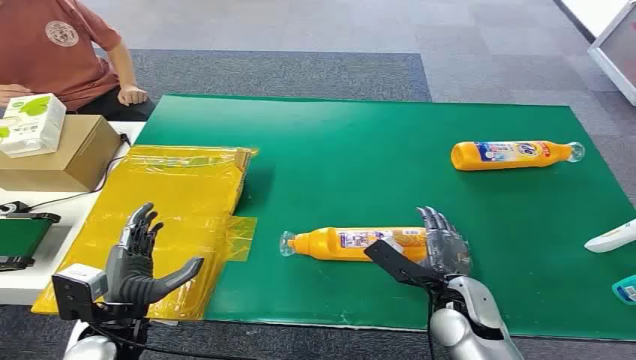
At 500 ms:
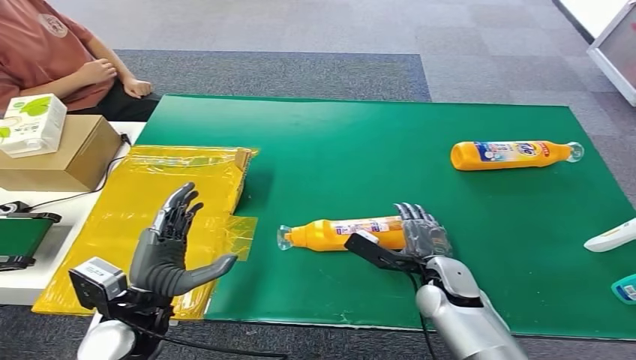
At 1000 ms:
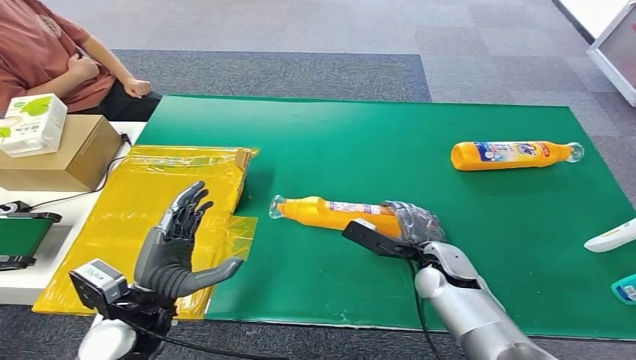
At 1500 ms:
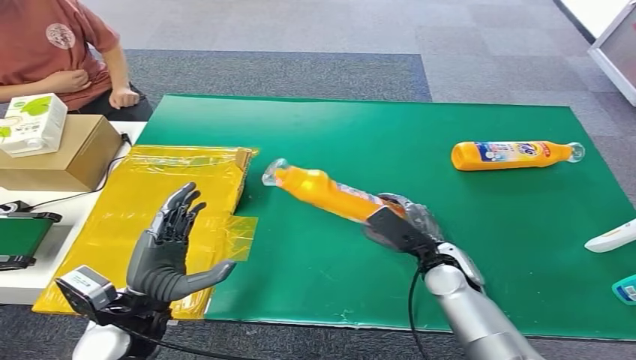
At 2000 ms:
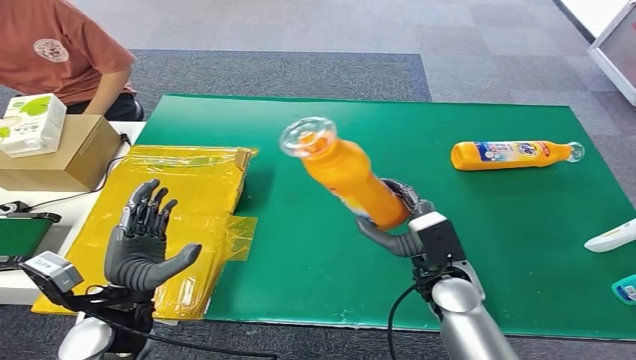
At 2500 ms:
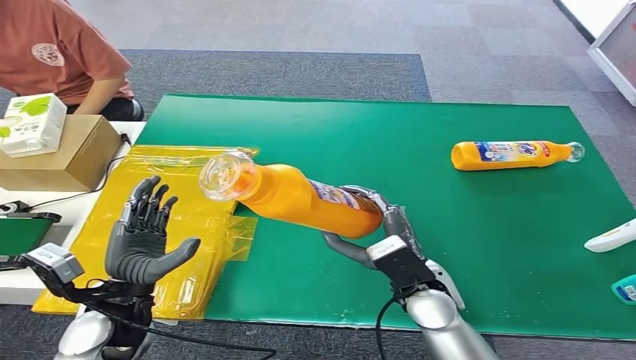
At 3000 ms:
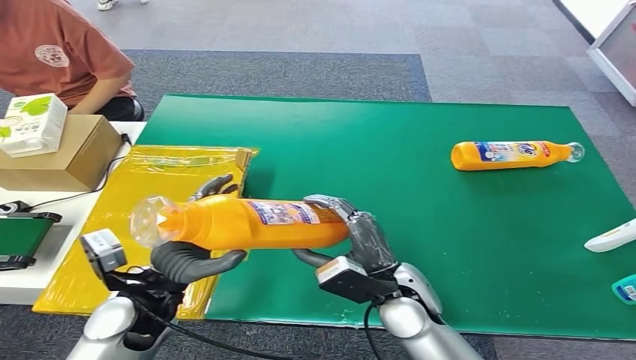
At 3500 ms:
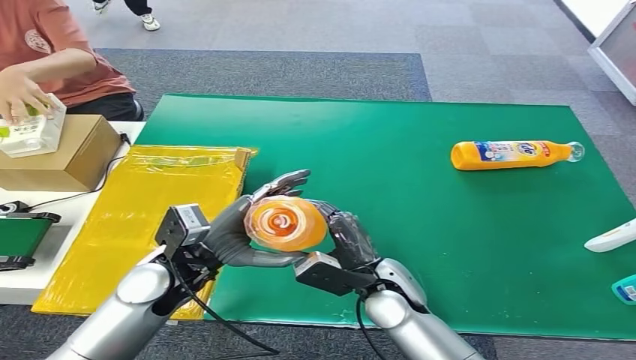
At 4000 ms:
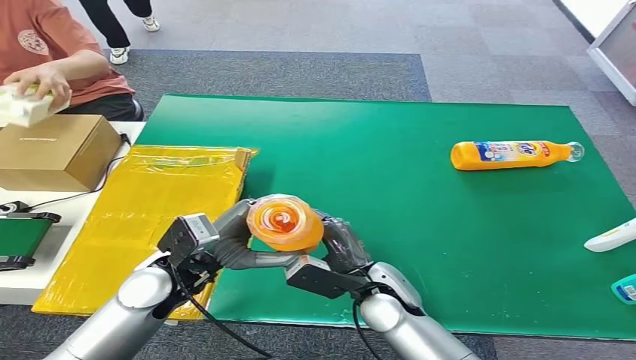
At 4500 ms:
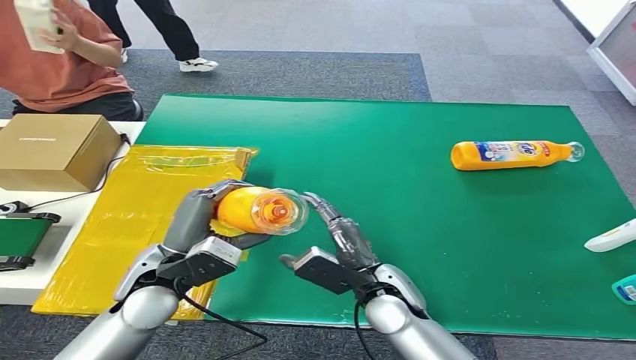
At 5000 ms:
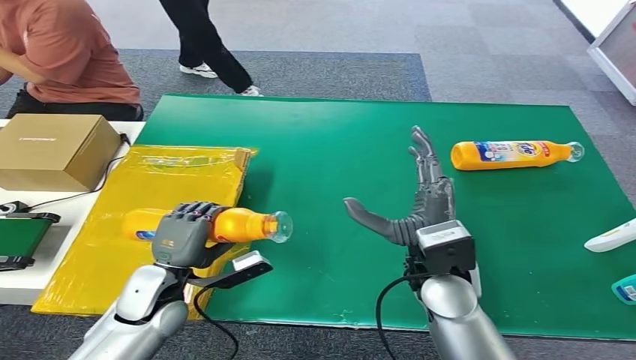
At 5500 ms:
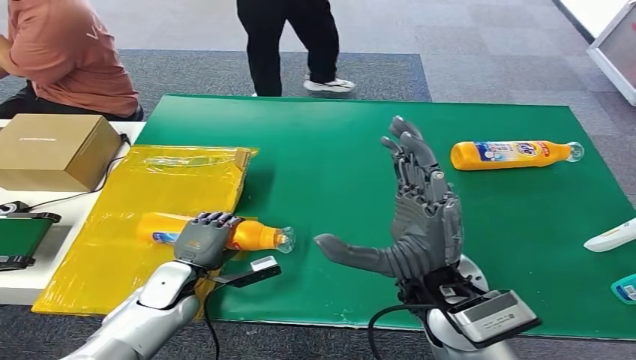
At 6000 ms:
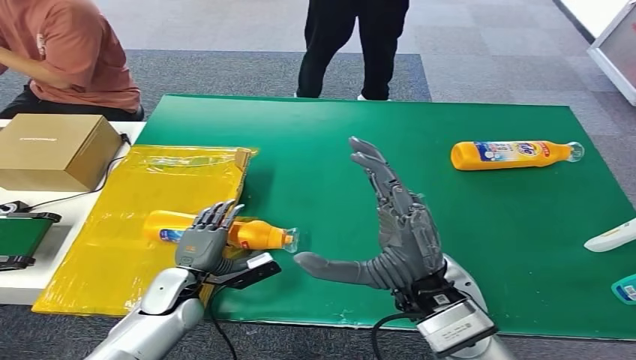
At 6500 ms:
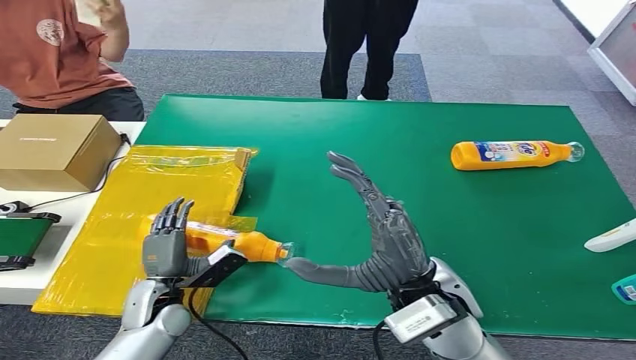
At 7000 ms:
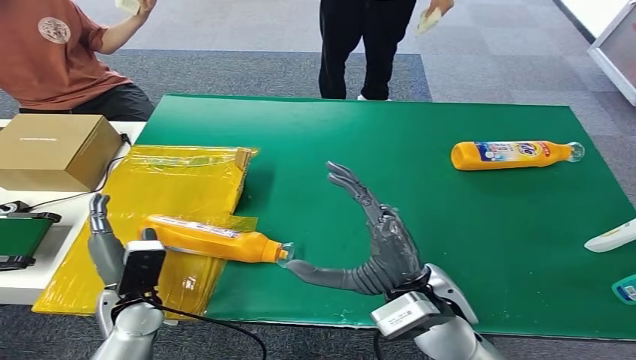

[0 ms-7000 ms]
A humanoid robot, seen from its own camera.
Step, 0 ms to 2000 ms: Pick up the bottle from the table.
Step, 2500 ms to 7000 ms: Turn the bottle to the front side.

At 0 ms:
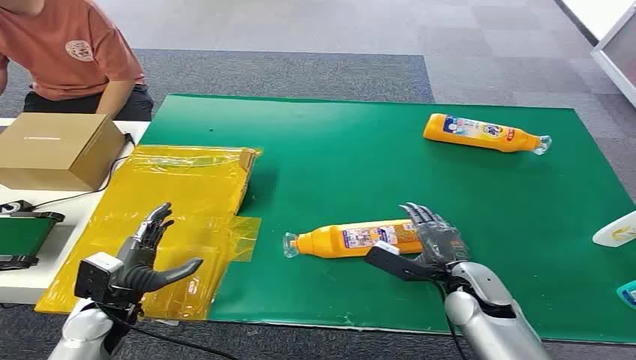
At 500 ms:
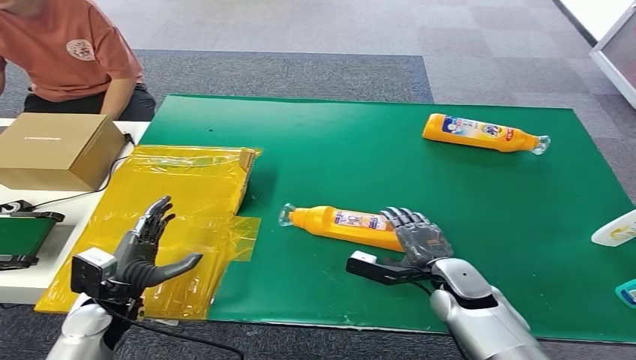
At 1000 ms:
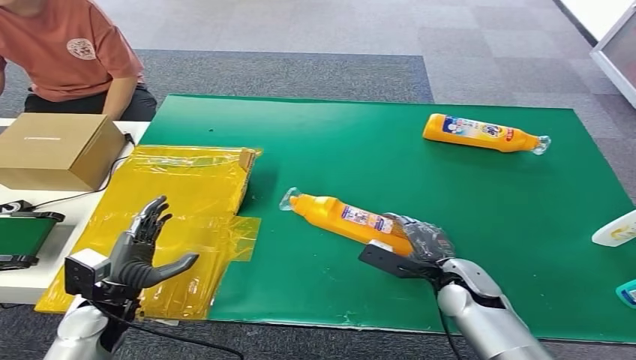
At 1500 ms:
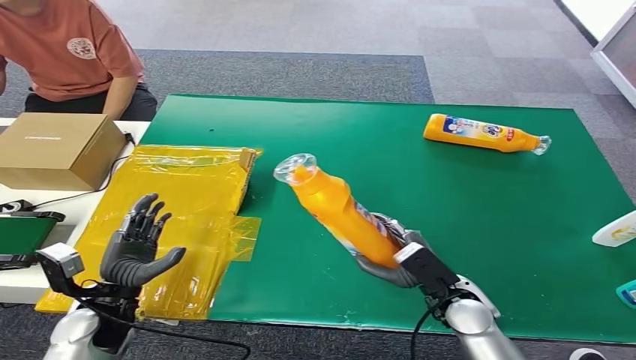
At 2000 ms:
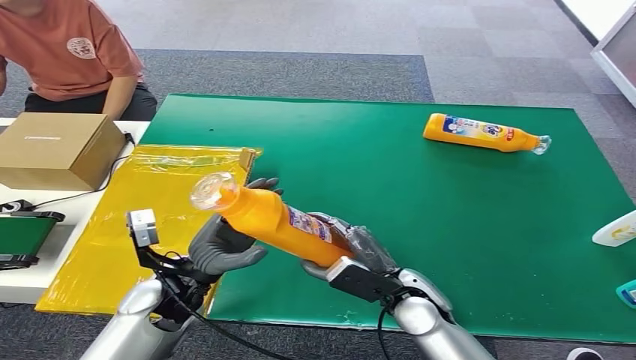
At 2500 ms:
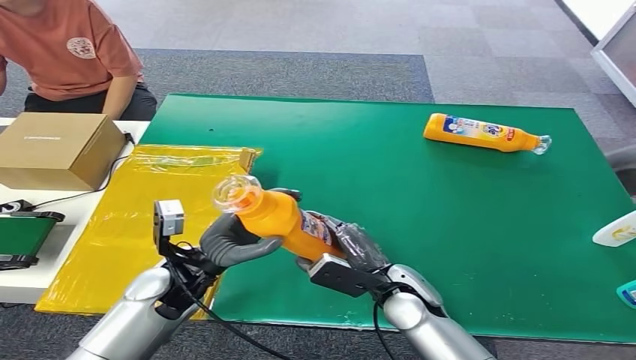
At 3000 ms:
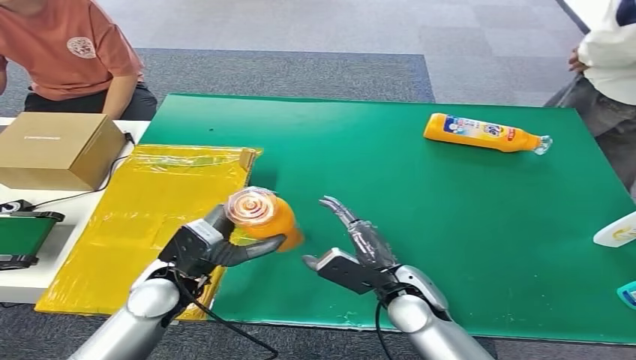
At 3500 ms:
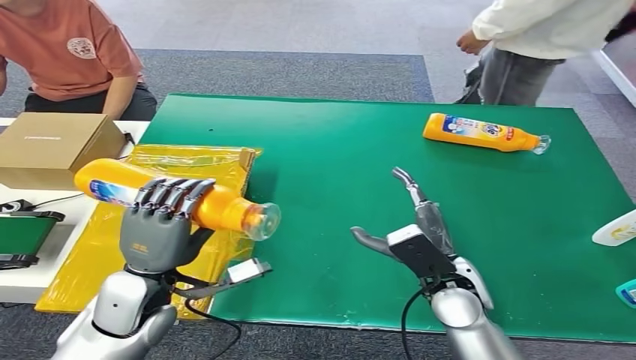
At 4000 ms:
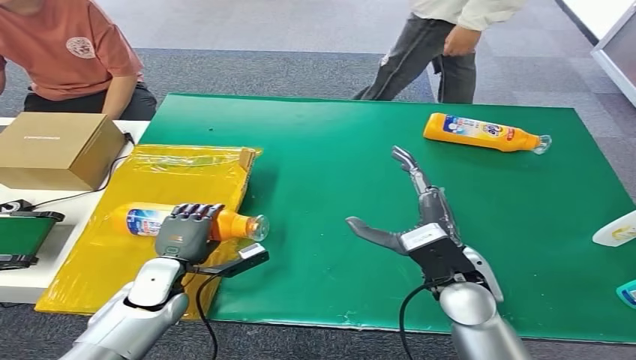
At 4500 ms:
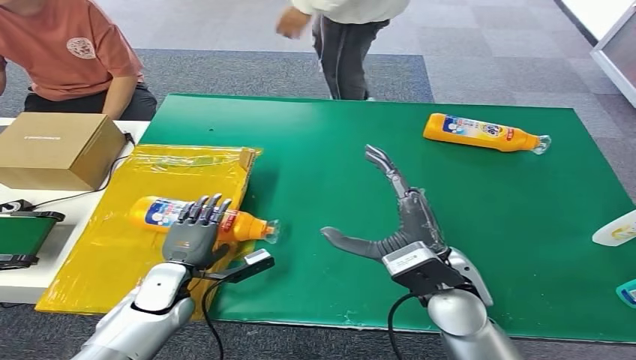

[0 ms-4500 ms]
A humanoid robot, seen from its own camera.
Step, 0 ms to 1000 ms: Pick up the bottle from the table.
Step, 1500 ms to 4500 ms: Turn the bottle to the front side.
2000 ms to 4500 ms: The left hand heads downward and to the left, covering roughly 10 cm. The right hand moves upward, approximately 10 cm.

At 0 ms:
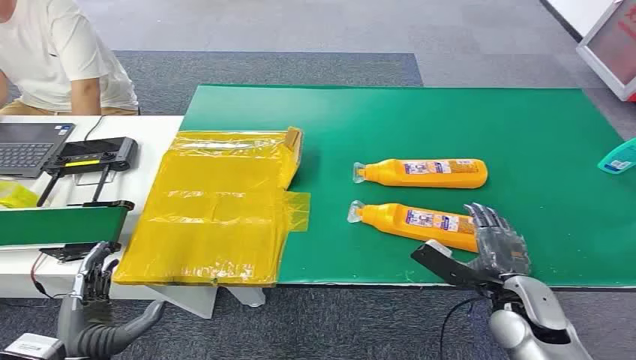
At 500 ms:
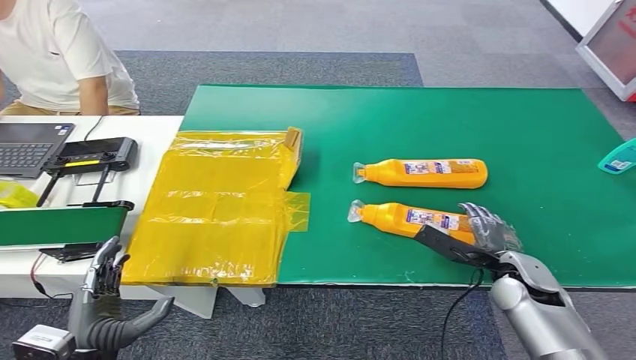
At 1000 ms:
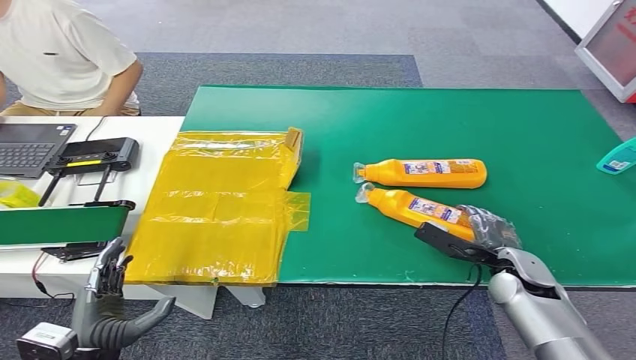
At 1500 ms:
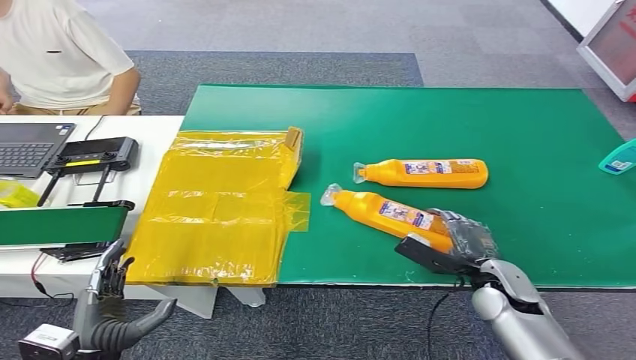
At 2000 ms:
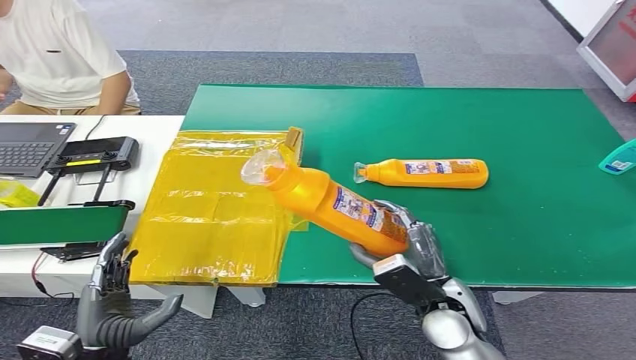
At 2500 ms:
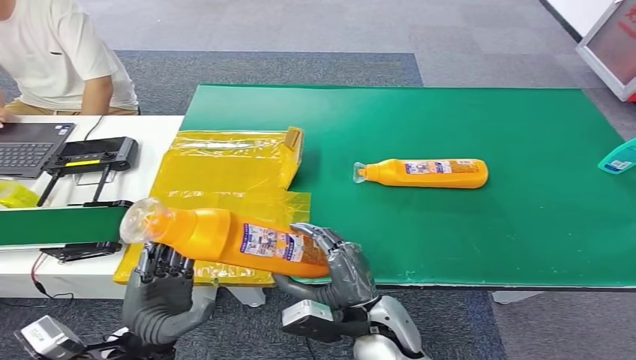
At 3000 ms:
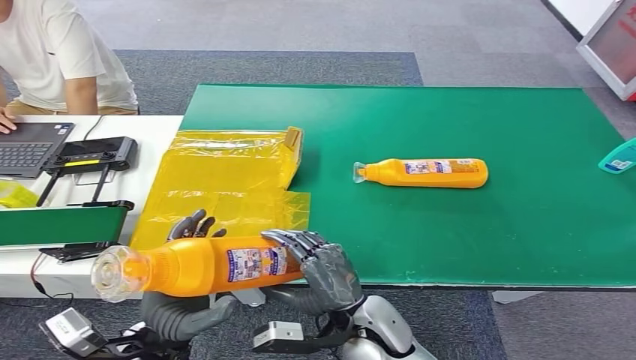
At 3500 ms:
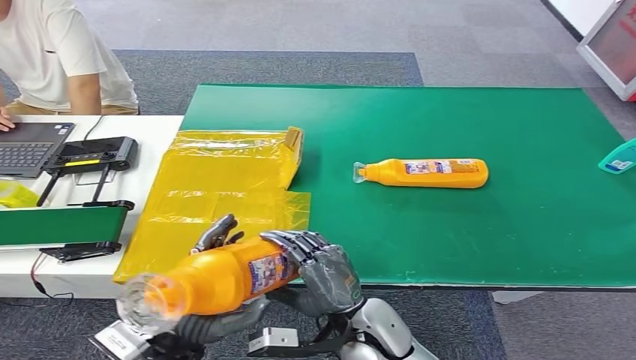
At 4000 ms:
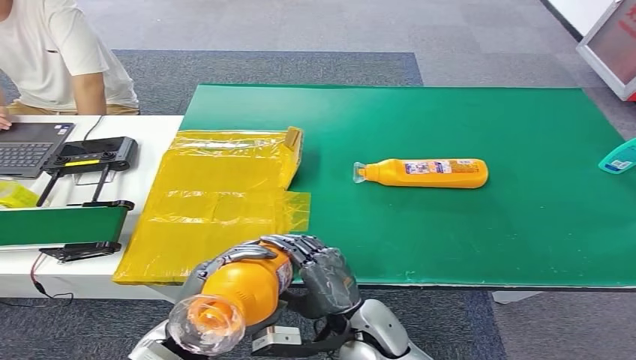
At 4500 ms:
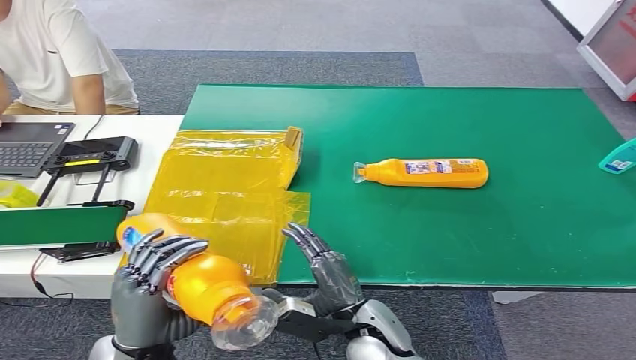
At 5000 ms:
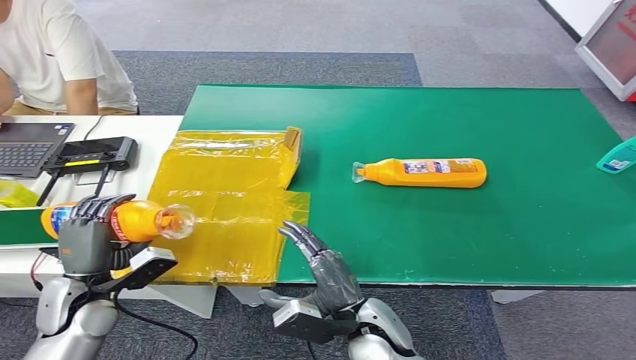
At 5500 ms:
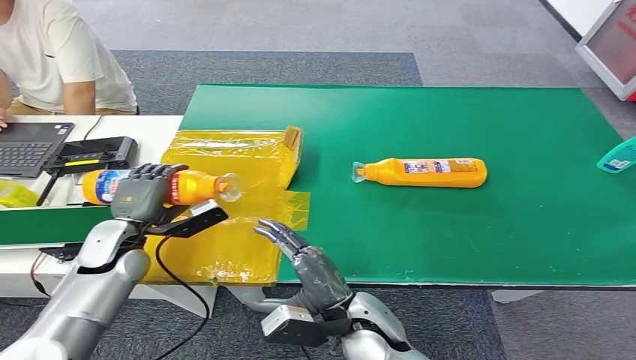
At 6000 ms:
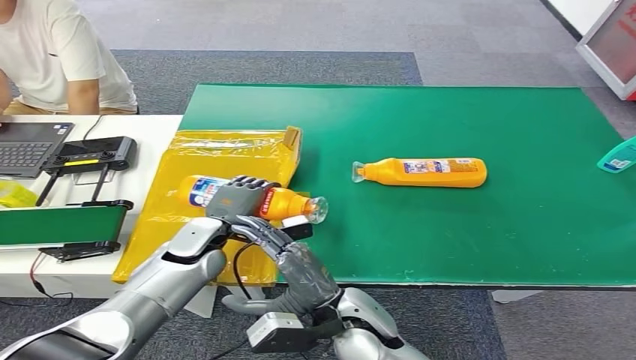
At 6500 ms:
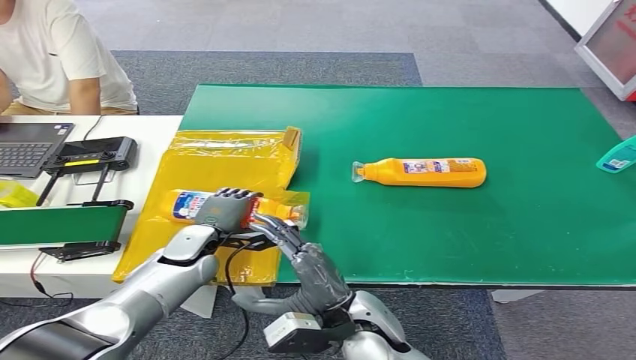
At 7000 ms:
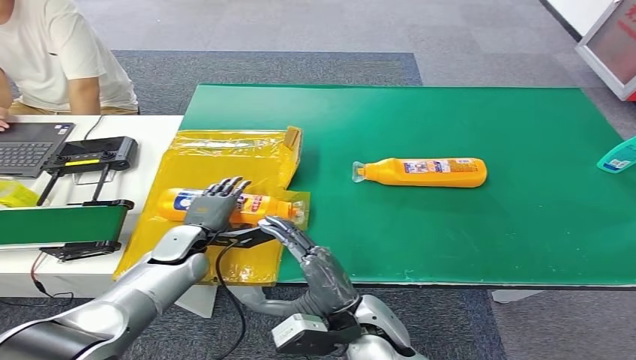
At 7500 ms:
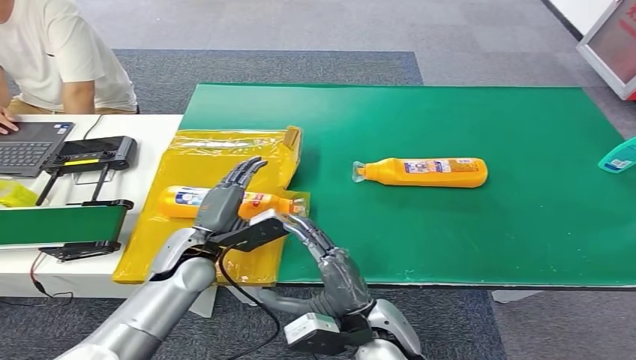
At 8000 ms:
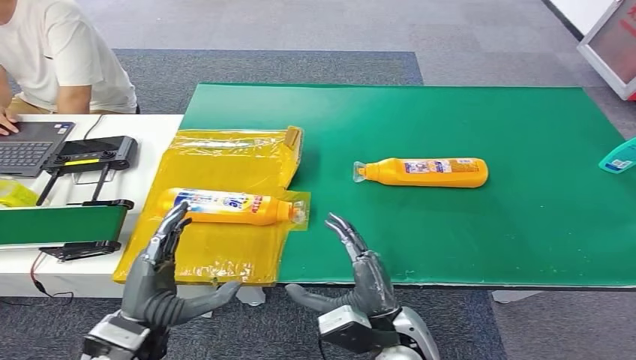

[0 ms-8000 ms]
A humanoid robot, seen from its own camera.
Step, 0 ms to 2000 ms: Pick up the bottle from the table.
Step, 3500 ms to 8000 ms: Turn the bottle to the front side.
2000 ms to 4000 ms: The left hand heads to the right, covering some 10 cm; the right hand moves to the left, about 10 cm.
4000 ms to 6000 ms: The left hand heads forward, covering some 20 cm.
6000 ms to 8000 ms: The left hand shifts some 20 cm backward. Meanwhile the right hand heads to the right, covering approximately 5 cm.
